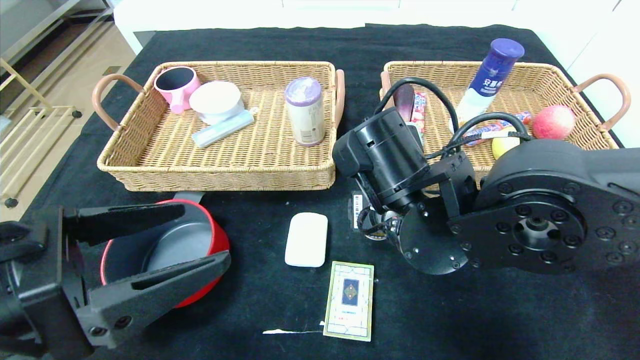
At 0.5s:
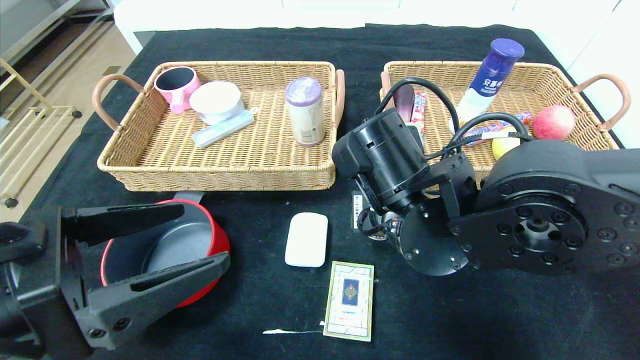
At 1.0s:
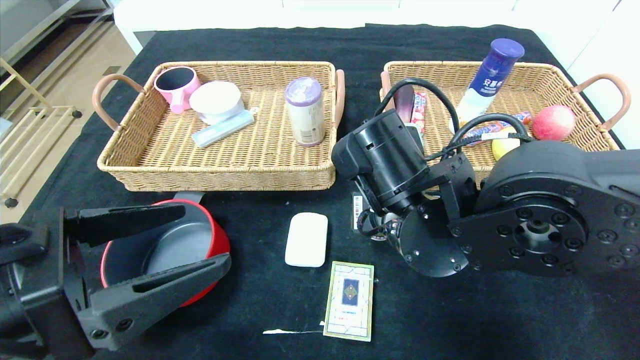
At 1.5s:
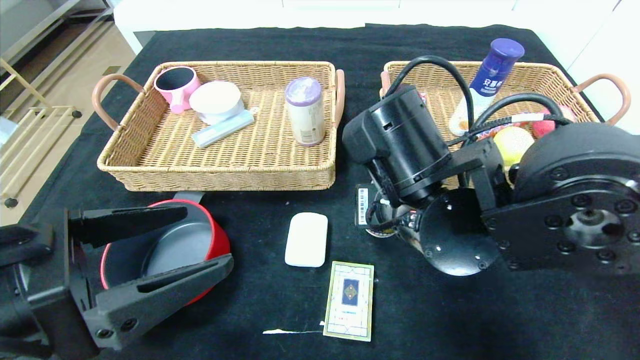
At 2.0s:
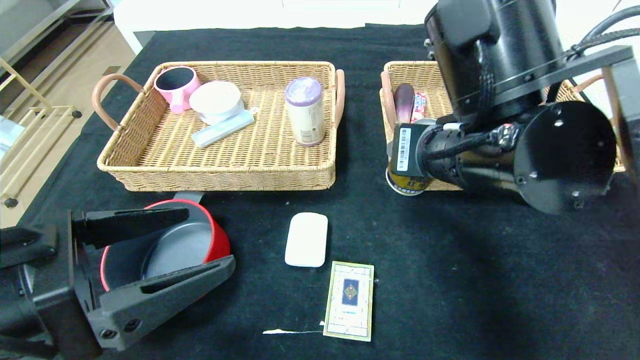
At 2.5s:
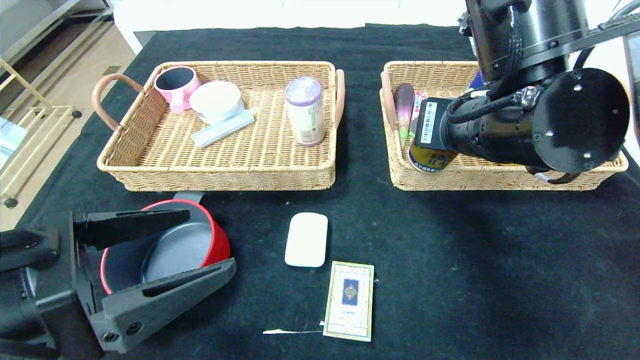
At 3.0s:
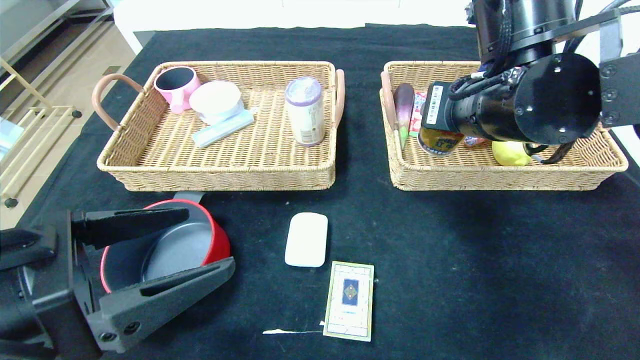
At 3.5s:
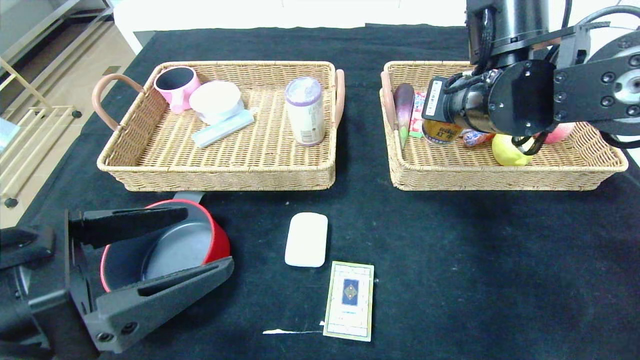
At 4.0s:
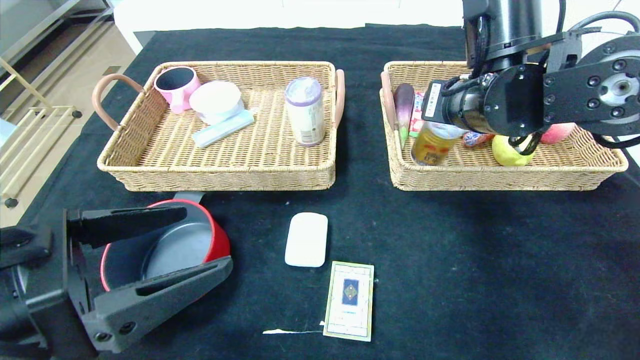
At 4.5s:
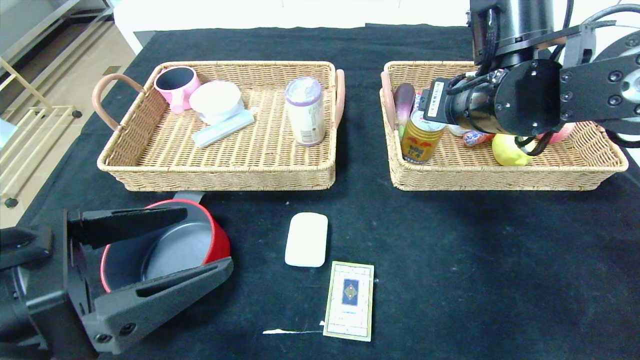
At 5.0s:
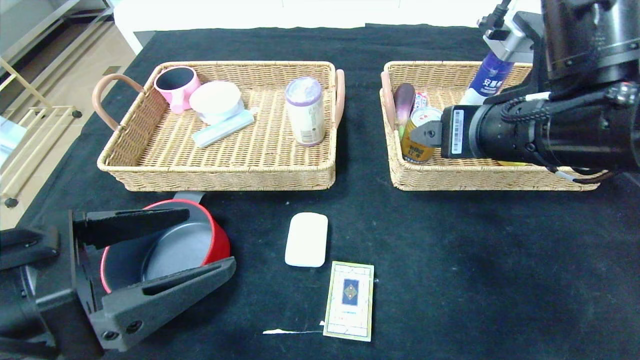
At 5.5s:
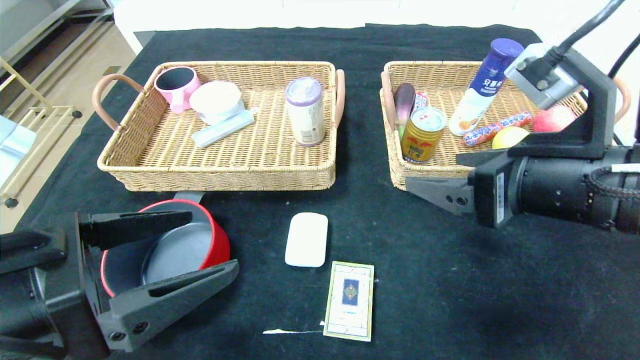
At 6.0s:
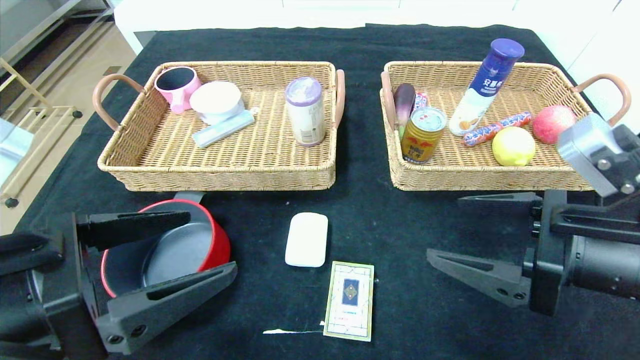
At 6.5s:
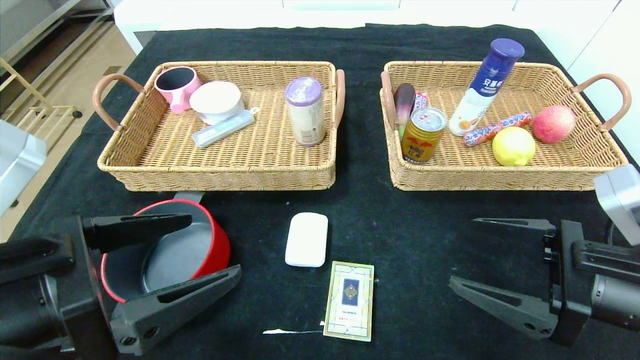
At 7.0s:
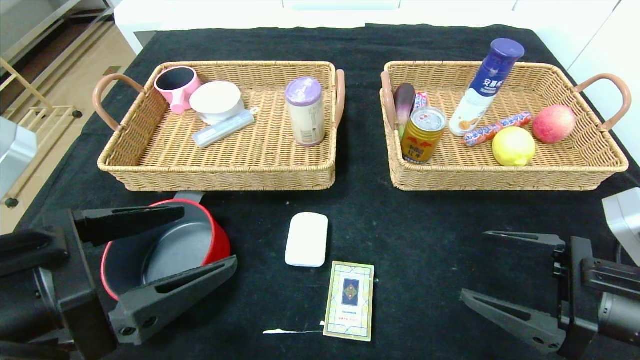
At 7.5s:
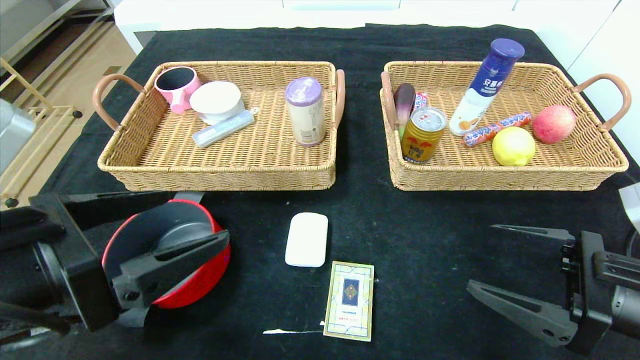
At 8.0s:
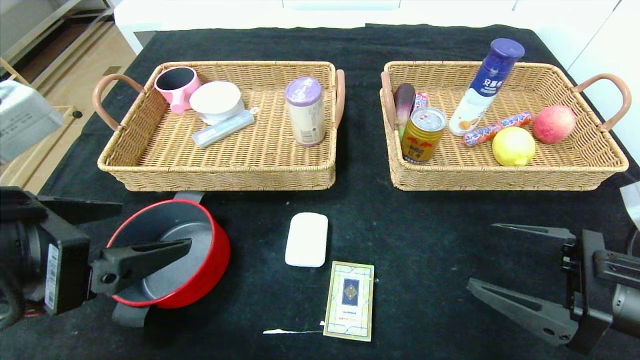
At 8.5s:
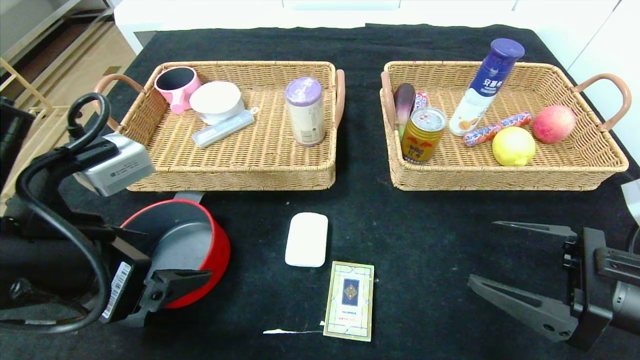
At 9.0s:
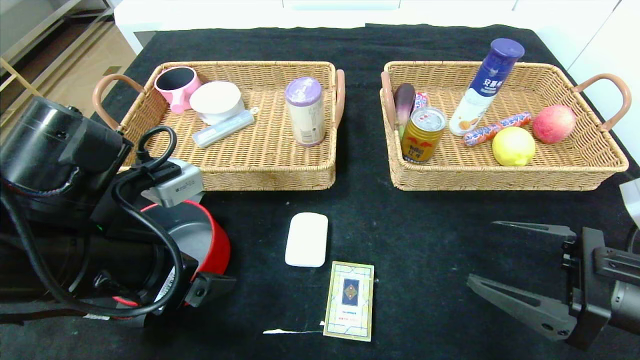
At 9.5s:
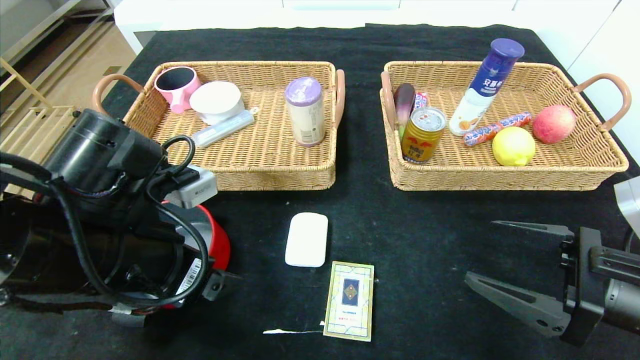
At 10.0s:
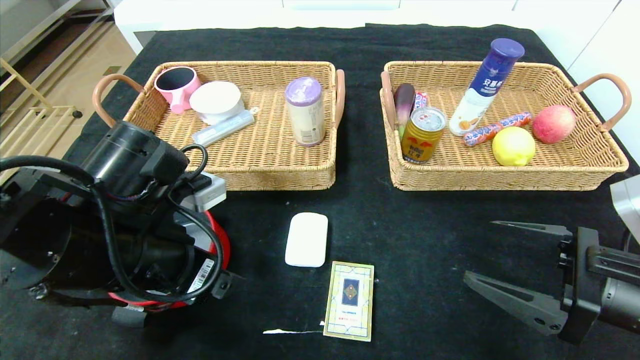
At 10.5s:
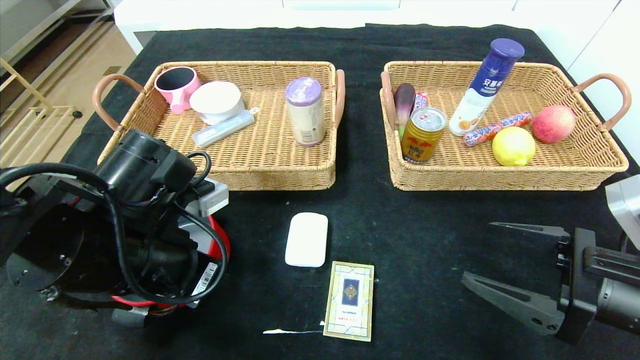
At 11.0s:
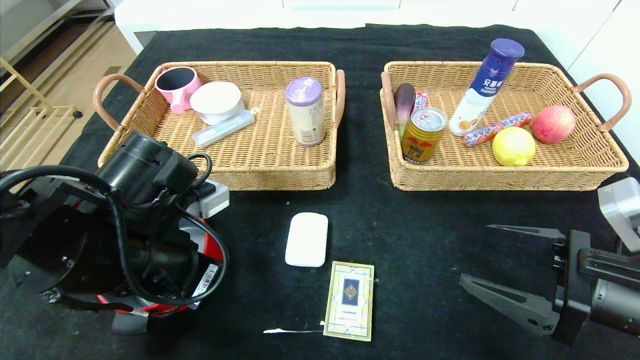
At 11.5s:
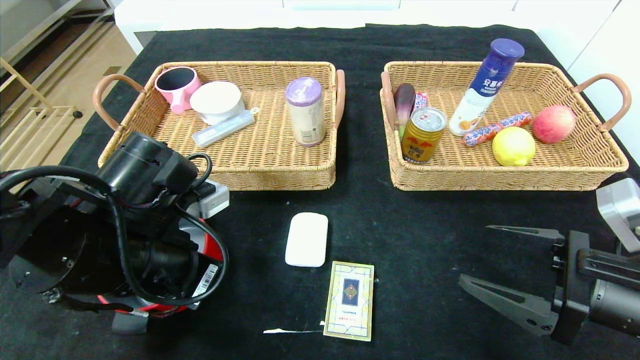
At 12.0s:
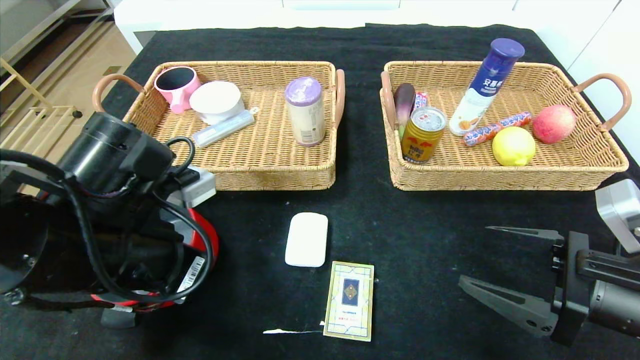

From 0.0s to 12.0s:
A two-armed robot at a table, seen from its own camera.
Step, from 0.0s to 4.0s: Grasp the Red Bull and put it in the right basket.
From 0.0s to 2.0s: The right gripper travels upward by approximately 10 cm.
From 2.0s to 4.0s: The right gripper shifts some 10 cm forward.
From 4.0s to 6.0s: The right gripper travels backward, downward and to the right by about 20 cm, and opens its fingers.
From 6.0s to 8.0s: The right gripper ends up approximately 5 cm from where it was.
From 8.0s to 10.0s: The left gripper goes some 10 cm forward and downward.
From 10.0s to 12.0s: The left gripper closes up.

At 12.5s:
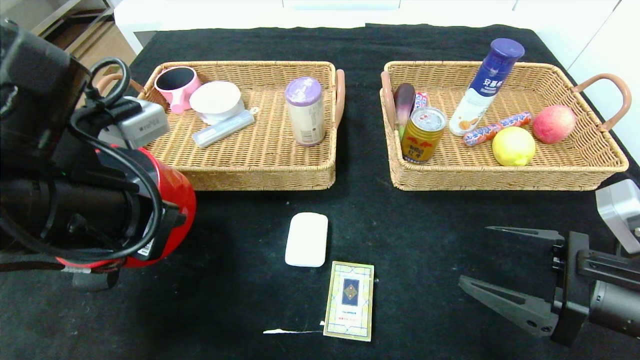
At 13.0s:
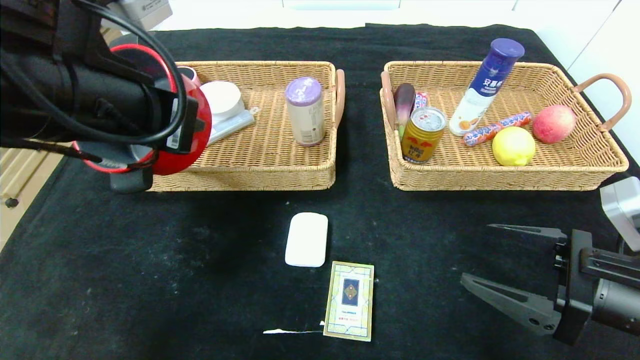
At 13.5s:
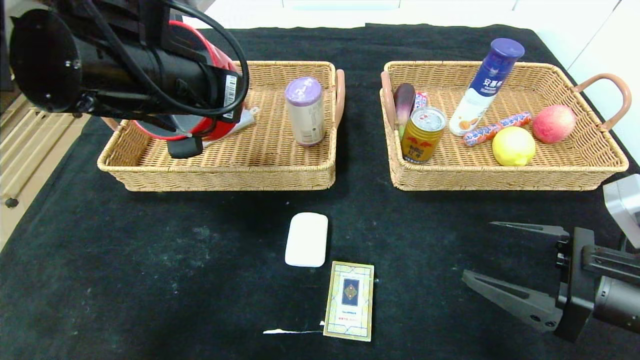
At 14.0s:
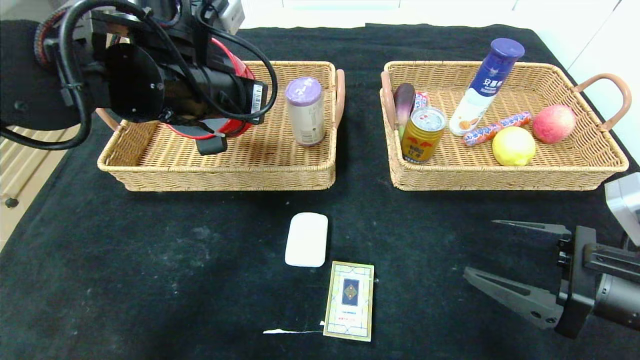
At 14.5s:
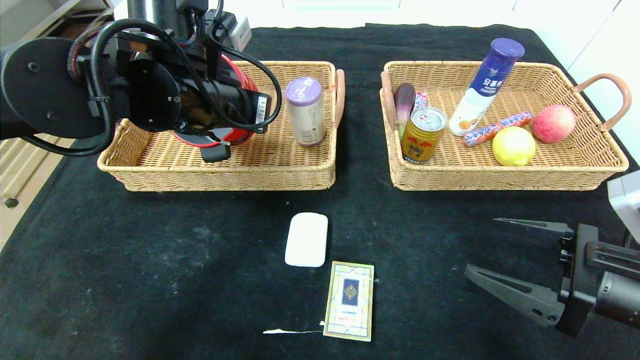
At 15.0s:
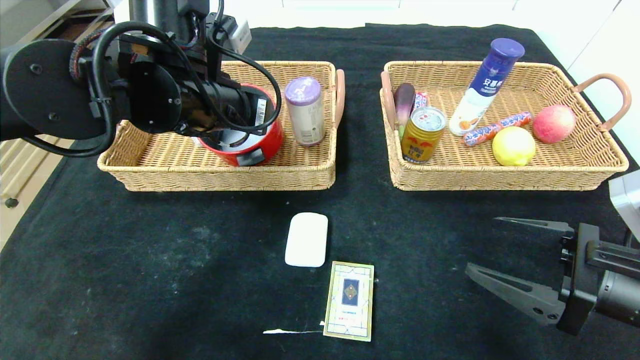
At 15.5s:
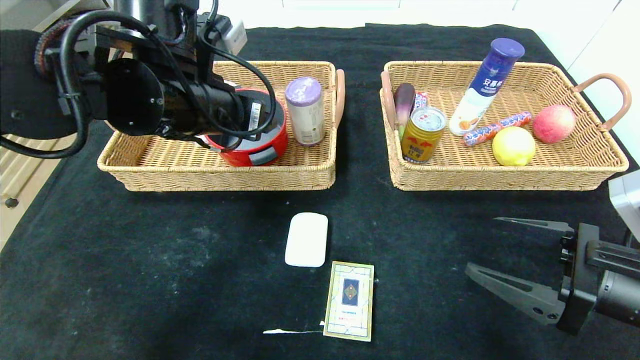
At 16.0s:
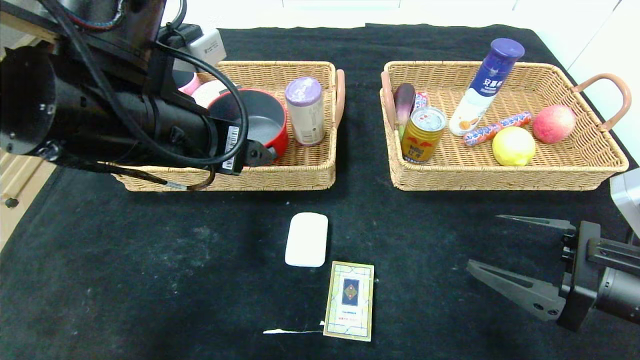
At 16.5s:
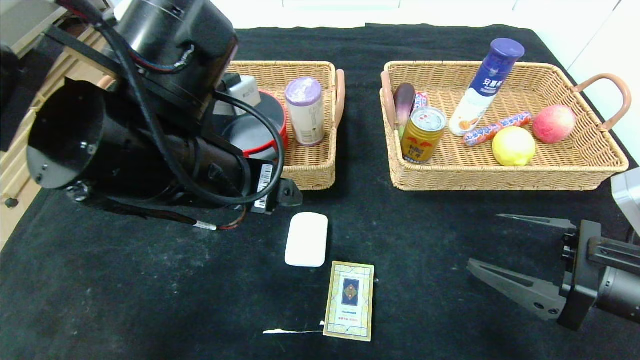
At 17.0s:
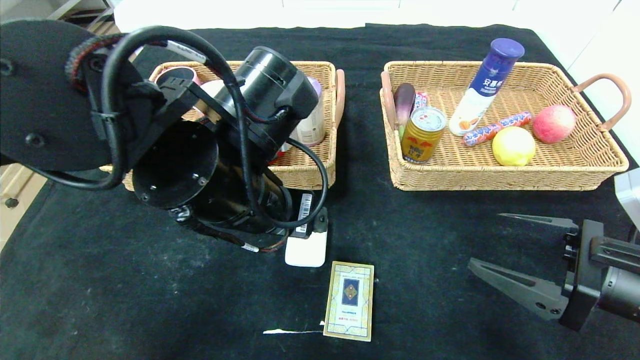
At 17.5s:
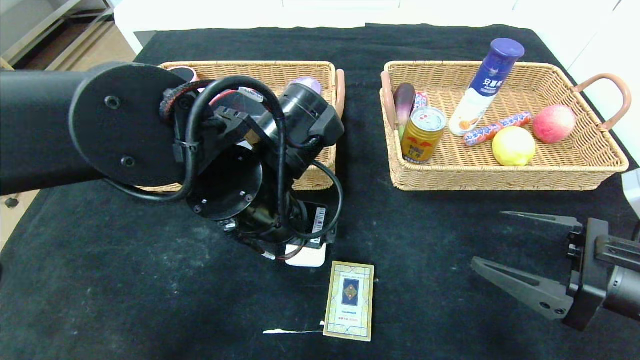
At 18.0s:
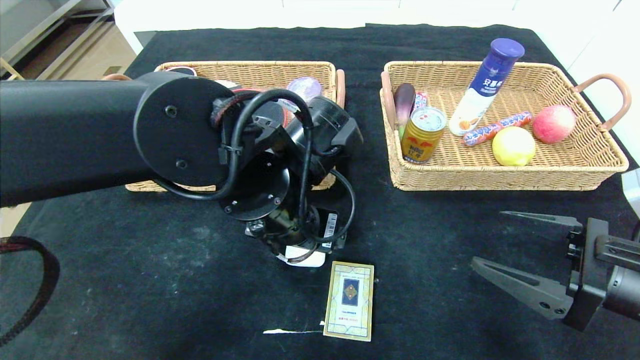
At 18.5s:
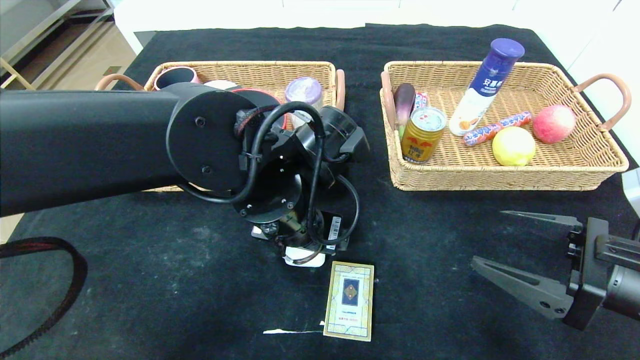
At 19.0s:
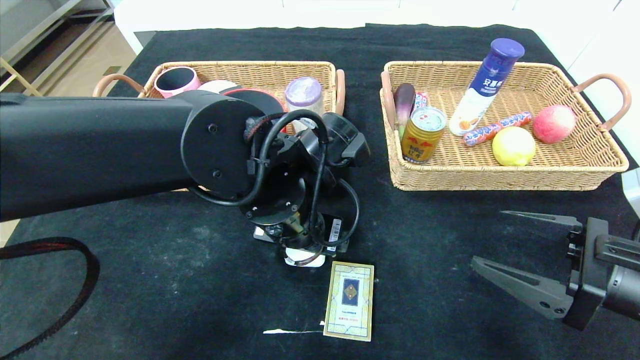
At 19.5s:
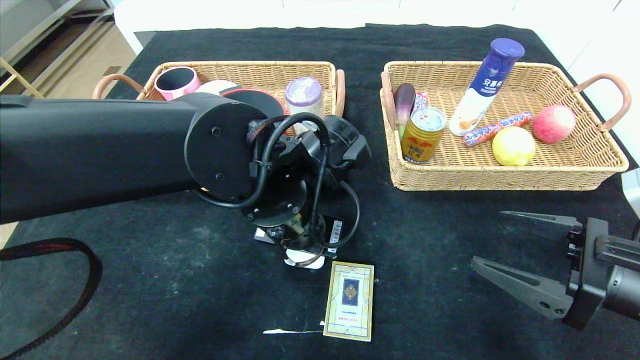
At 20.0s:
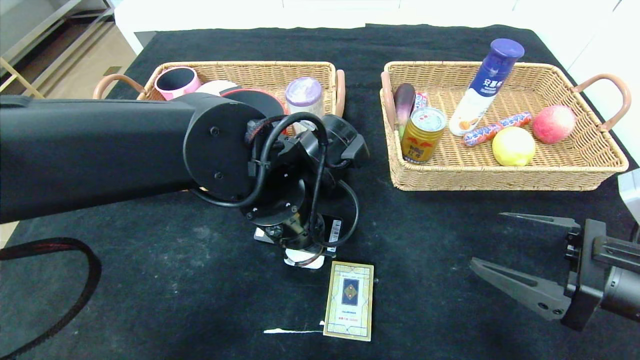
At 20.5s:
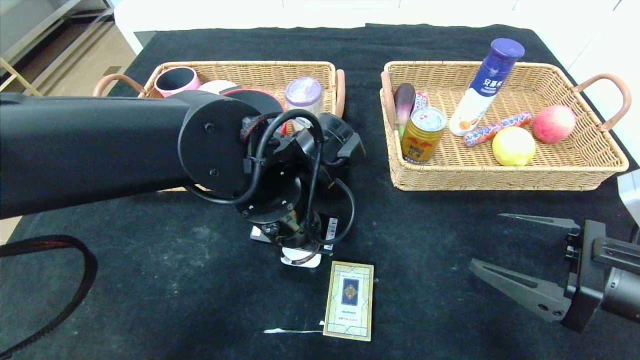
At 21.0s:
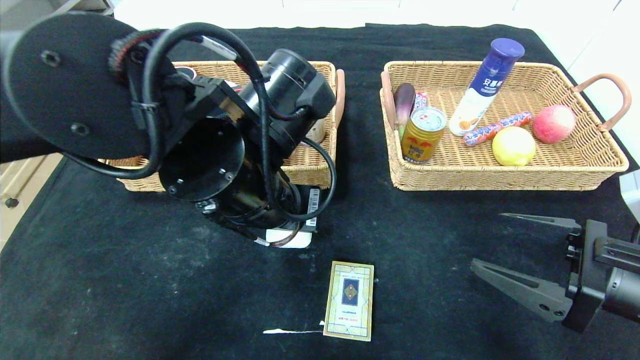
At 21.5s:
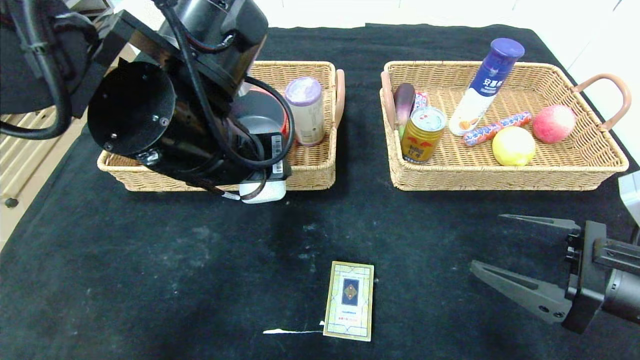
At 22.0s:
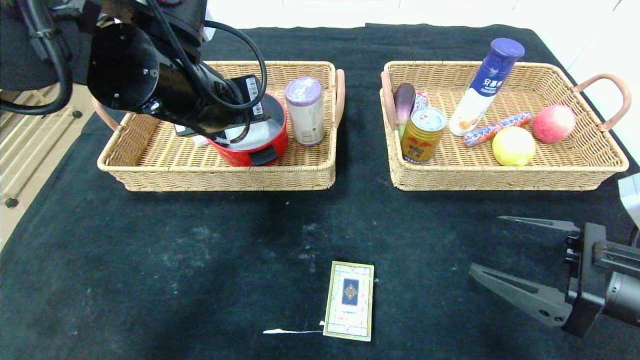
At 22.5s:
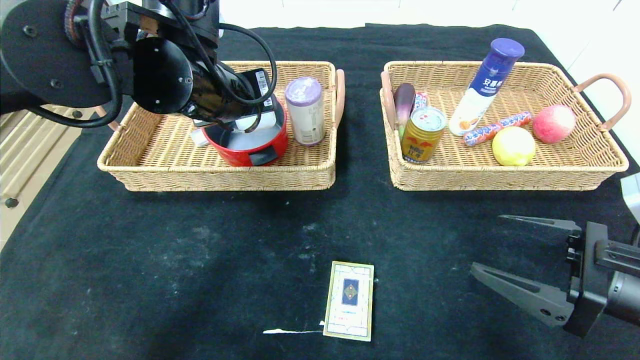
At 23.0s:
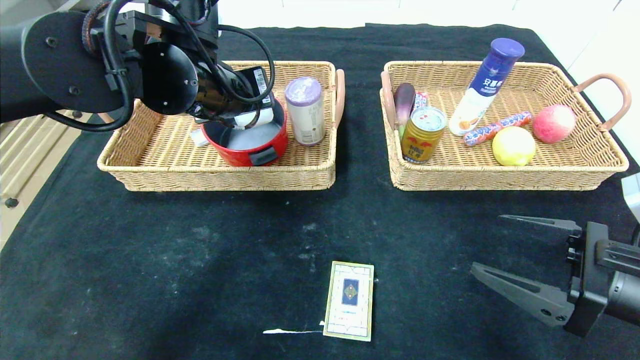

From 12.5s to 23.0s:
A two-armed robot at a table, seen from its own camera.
Step, from 12.5s to 15.0s: Grasp the red pot and put it in the left basket.
From 12.5s to 14.5s: The left gripper shifts about 15 cm forward.
From 14.5s to 16.5s: The left gripper is displaced backward by some 10 cm, and opens up.
From 16.5s to 19.0s: The left gripper travels downward and to the right by about 10 cm.
From 19.0s to 21.0s: The left gripper shifts by approximately 5 cm, and closes.
From 21.0s to 23.0s: The left gripper goes approximately 15 cm forward, to the left and upward.
